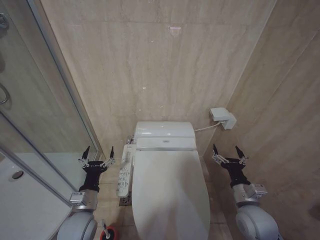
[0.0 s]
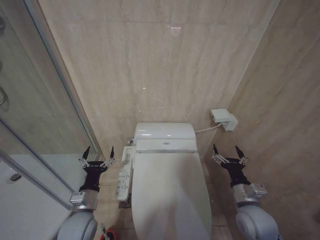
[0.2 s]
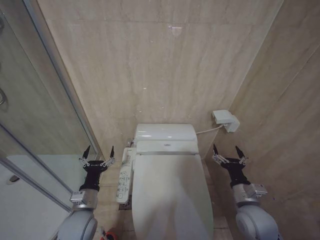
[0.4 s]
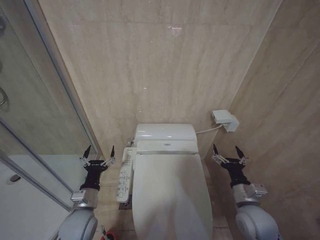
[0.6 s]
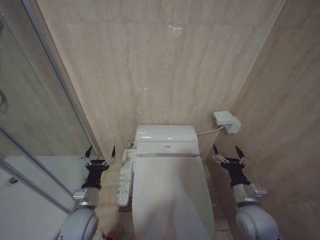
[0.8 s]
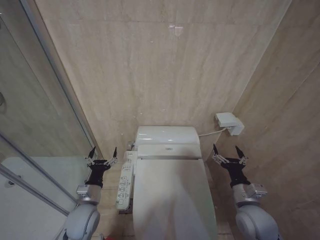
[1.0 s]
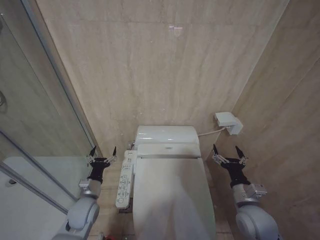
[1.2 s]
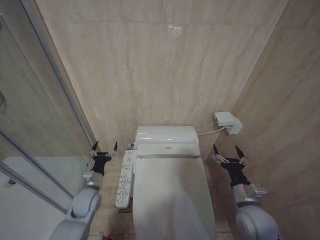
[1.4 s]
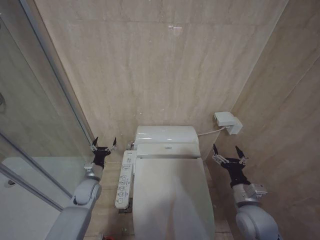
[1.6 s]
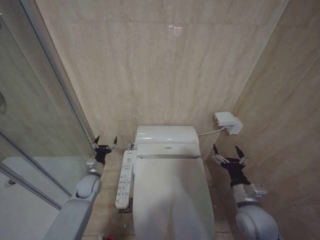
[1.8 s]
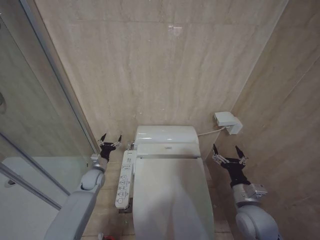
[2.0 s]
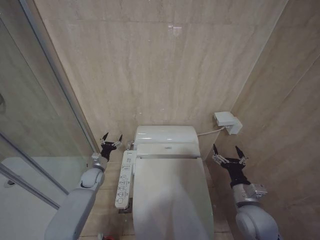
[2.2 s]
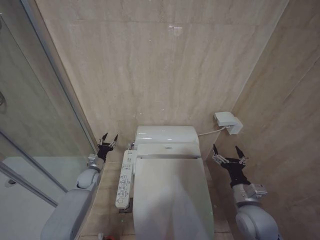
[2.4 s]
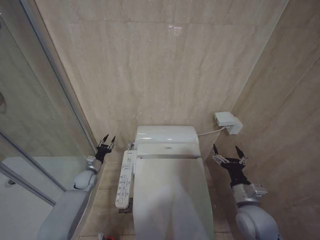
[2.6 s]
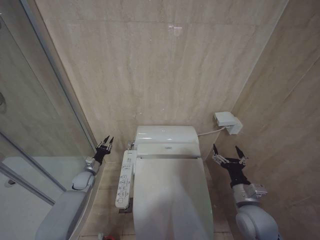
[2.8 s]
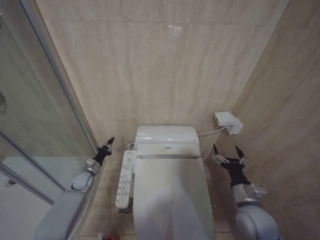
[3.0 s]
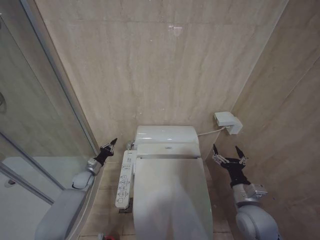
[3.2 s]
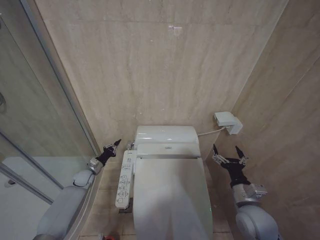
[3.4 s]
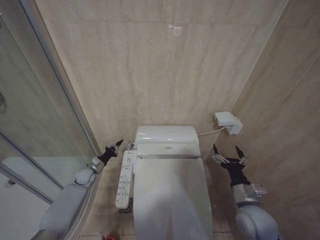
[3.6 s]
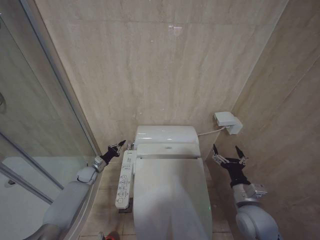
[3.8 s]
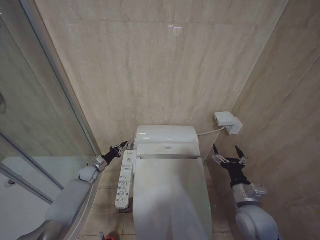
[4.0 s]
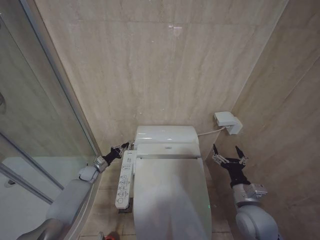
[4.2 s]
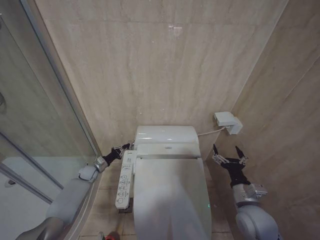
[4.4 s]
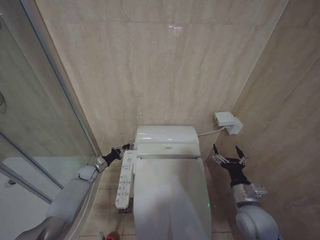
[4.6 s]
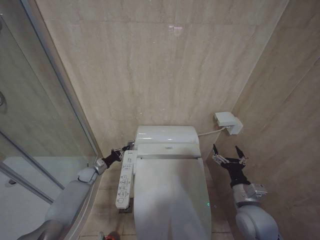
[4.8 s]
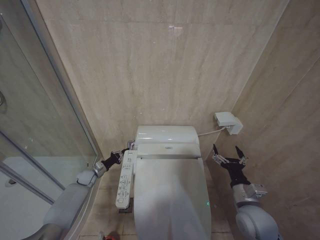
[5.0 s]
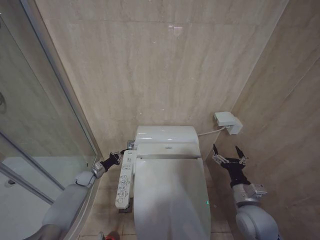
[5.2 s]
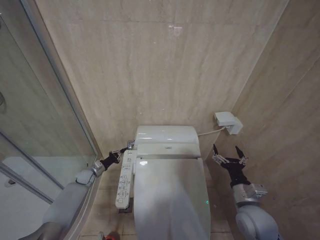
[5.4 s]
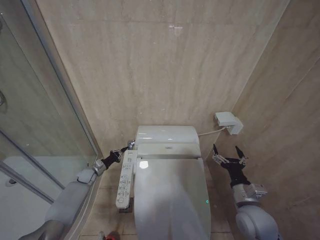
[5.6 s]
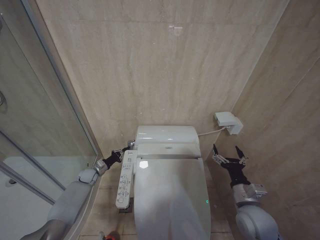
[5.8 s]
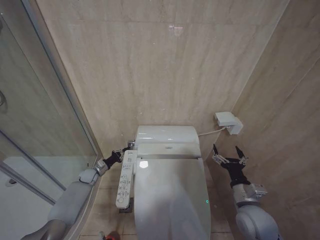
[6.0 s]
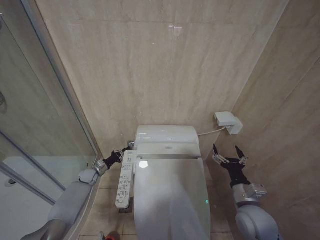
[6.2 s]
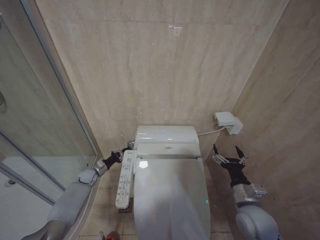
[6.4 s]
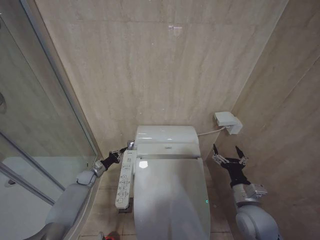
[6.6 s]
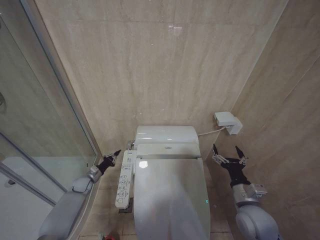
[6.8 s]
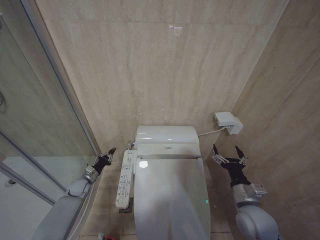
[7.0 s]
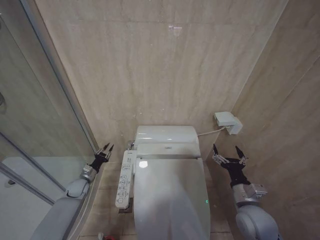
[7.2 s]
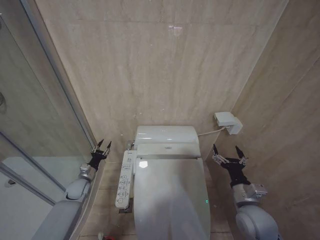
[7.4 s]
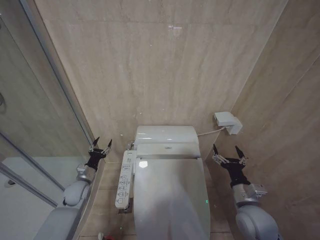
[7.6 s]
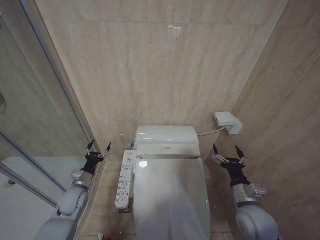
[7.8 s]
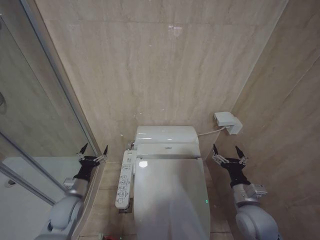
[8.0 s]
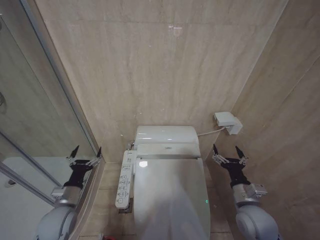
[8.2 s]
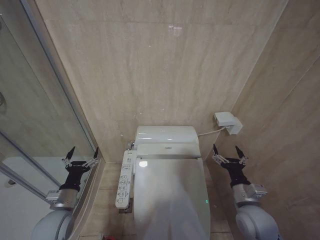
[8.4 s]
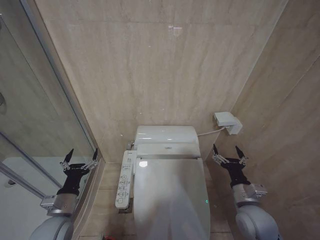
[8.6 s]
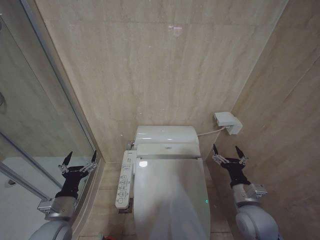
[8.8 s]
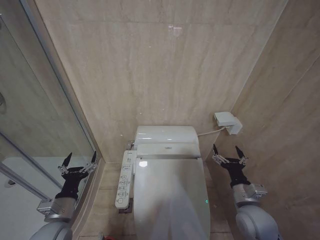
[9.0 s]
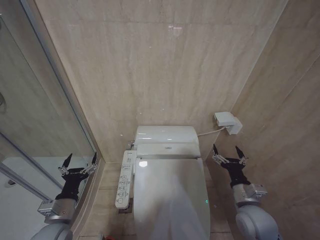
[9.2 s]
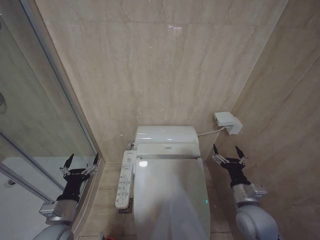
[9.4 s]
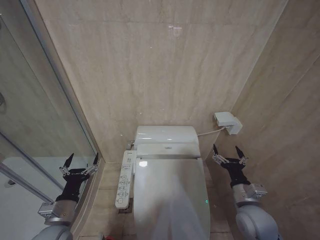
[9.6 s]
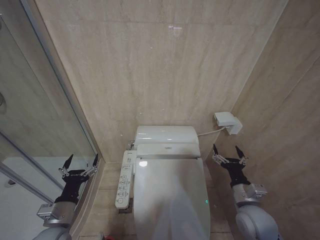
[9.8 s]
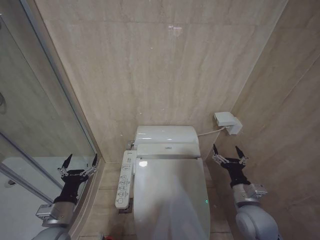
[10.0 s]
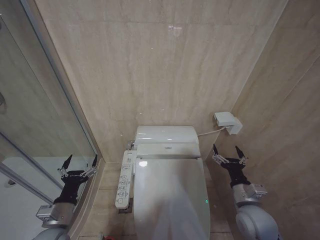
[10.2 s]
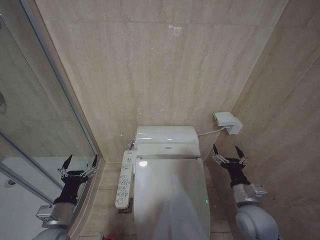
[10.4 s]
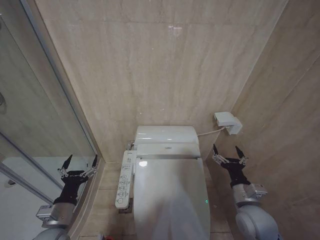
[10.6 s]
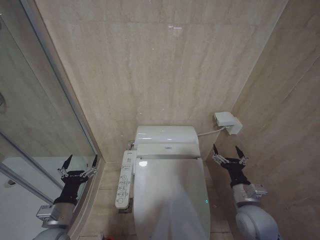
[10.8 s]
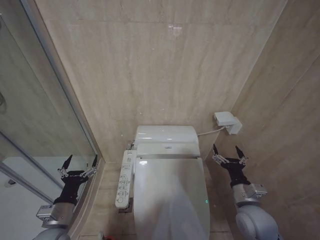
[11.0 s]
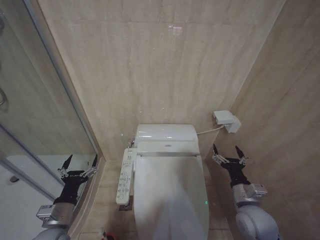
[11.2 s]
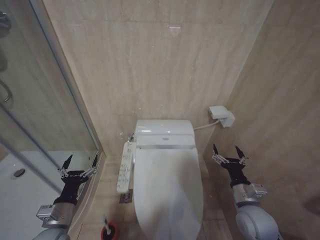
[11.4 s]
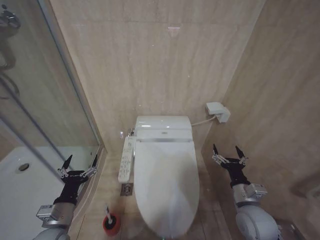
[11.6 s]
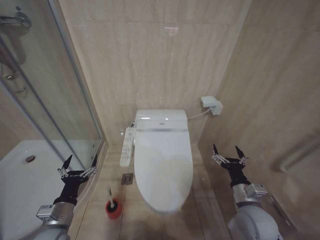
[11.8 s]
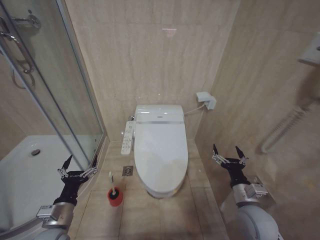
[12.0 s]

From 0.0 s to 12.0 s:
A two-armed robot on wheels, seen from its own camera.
Task of the whole recording: Open the toilet lid, clean the toilet bowl with a toilet brush, close the toilet lid, and flush.
From 0.0 s to 1.6 s: The left gripper goes approximately 15 cm forward and downward.
From 1.6 s to 3.0 s: The left gripper travels forward, to the left and downward by approximately 10 cm, and closes.
From 3.0 s to 4.4 s: The left gripper changes place by roughly 5 cm.
From 4.4 s to 6.0 s: The grippers move only a little.
From 6.0 s to 7.6 s: The left gripper travels backward and upward by some 10 cm, and opens up.
From 7.6 s to 9.0 s: The left gripper shifts roughly 20 cm backward and upward, and opens its fingers.
From 9.0 s to 10.4 s: The grippers stay close to where they were, moving slightly.

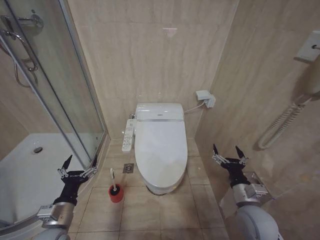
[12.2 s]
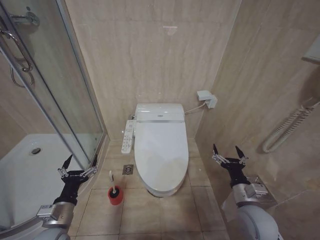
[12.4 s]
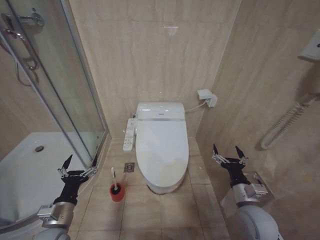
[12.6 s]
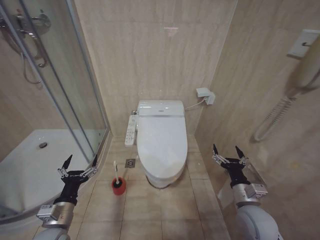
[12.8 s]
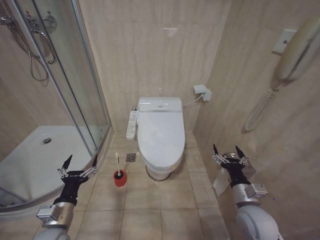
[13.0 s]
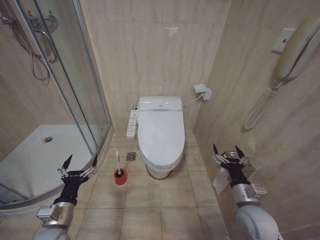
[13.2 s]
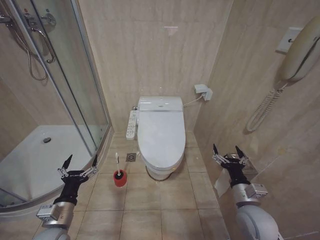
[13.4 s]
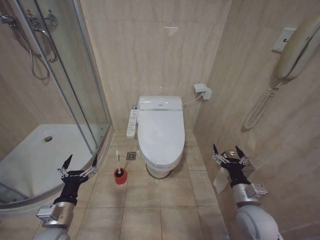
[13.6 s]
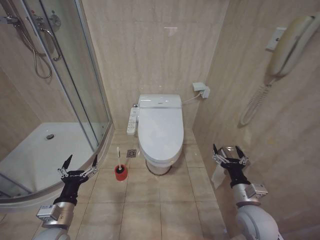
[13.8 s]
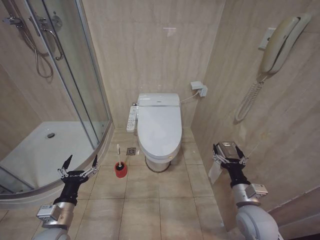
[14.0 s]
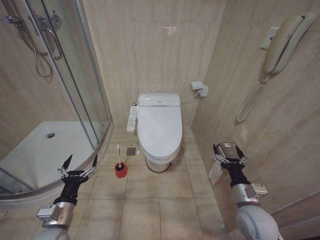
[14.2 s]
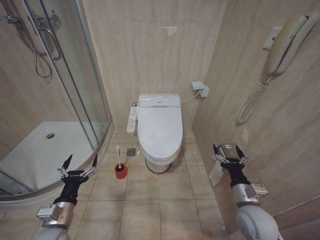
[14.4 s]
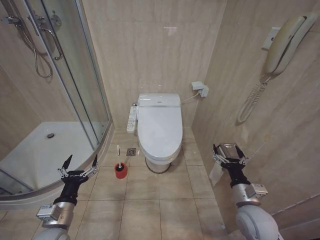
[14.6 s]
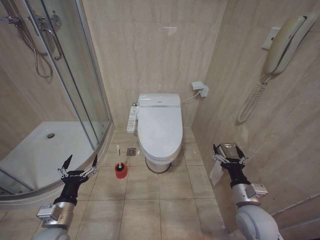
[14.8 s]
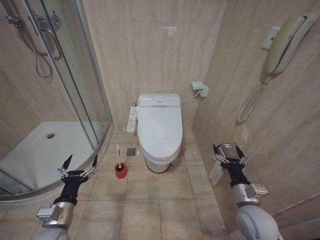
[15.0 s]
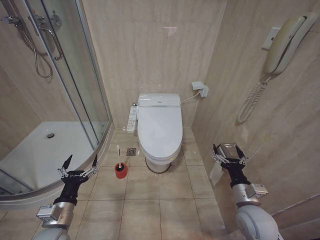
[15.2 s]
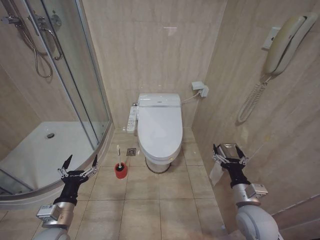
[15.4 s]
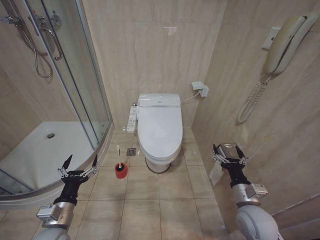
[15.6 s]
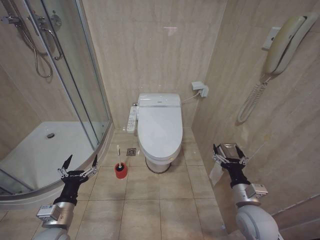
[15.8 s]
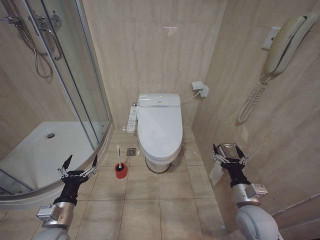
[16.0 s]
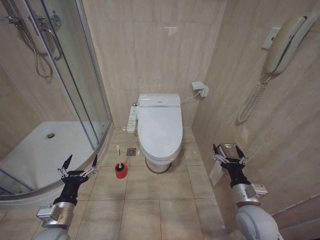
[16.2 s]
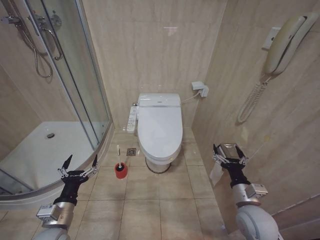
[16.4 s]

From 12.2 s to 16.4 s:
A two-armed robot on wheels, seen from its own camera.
Task of the whole recording: Open the toilet lid, clean the toilet bowl with a toilet brush, close the toilet lid, and flush.
From 12.2 s to 16.4 s: Neither gripper changes place.

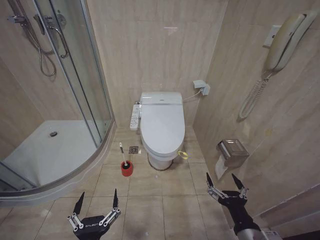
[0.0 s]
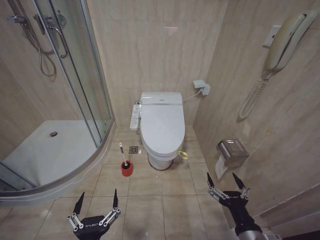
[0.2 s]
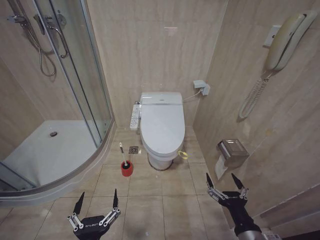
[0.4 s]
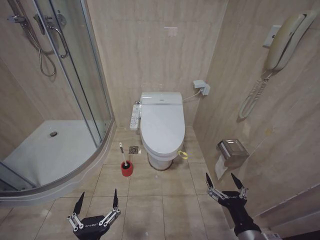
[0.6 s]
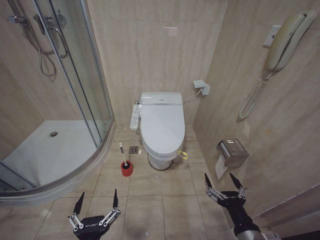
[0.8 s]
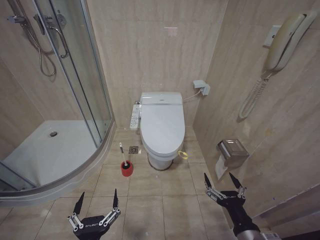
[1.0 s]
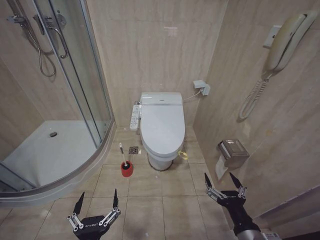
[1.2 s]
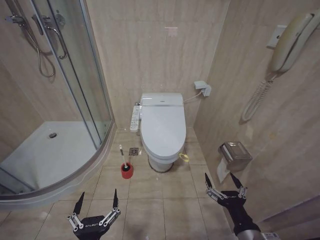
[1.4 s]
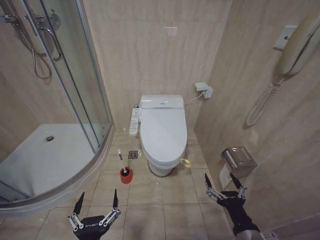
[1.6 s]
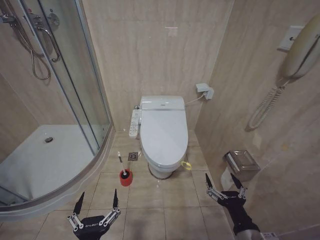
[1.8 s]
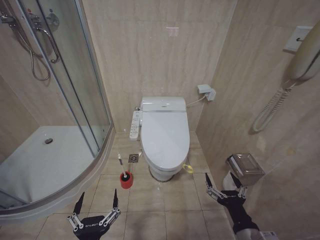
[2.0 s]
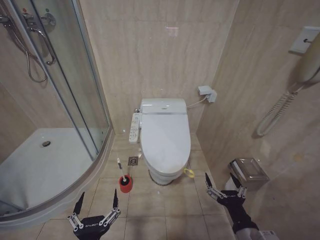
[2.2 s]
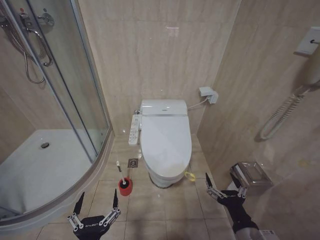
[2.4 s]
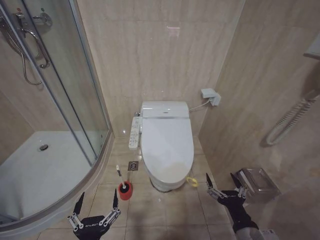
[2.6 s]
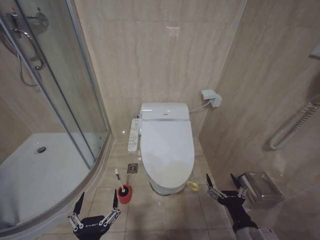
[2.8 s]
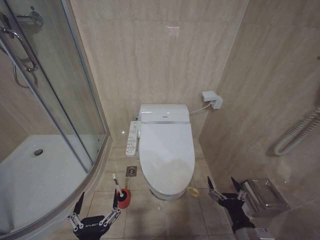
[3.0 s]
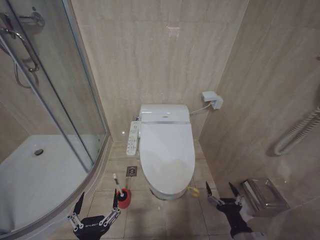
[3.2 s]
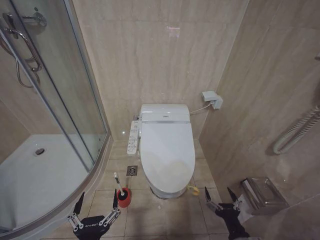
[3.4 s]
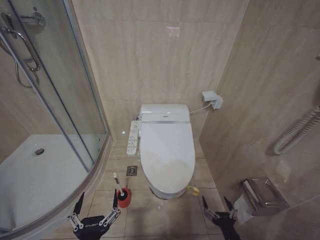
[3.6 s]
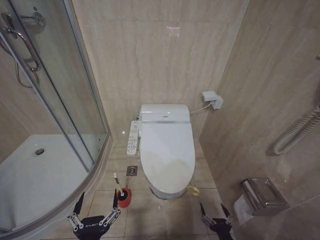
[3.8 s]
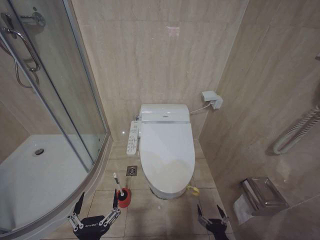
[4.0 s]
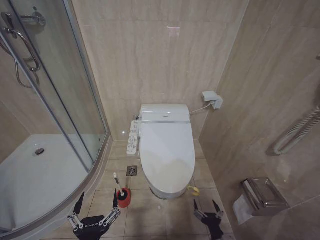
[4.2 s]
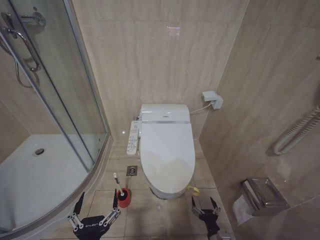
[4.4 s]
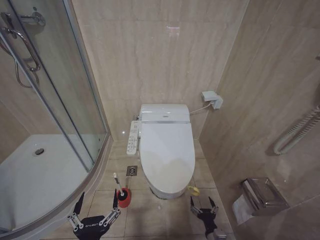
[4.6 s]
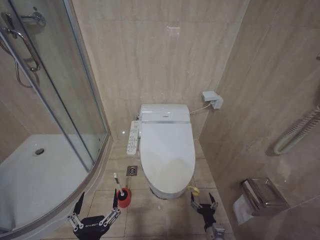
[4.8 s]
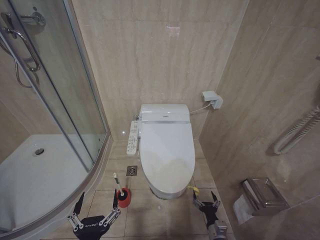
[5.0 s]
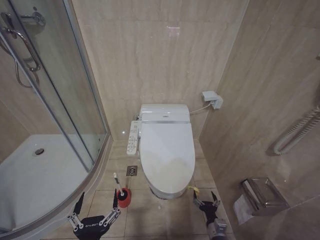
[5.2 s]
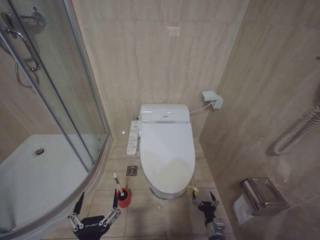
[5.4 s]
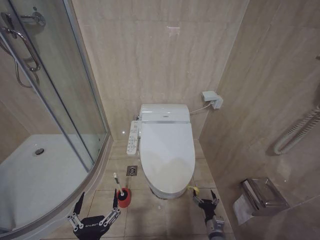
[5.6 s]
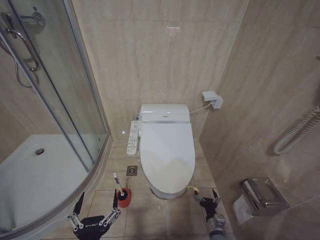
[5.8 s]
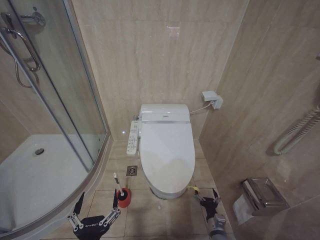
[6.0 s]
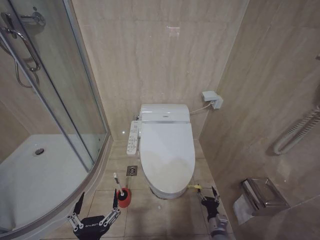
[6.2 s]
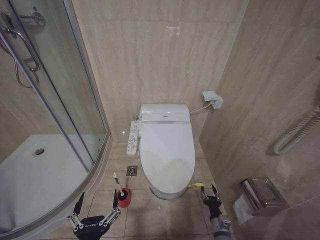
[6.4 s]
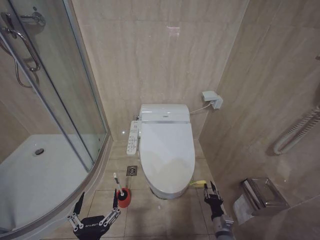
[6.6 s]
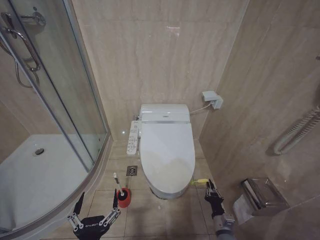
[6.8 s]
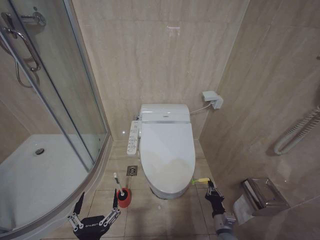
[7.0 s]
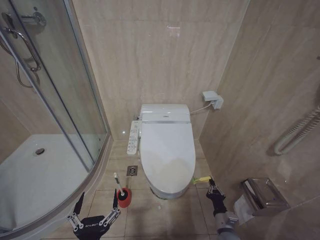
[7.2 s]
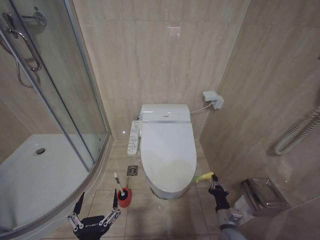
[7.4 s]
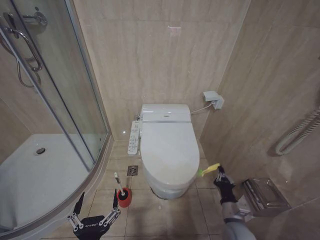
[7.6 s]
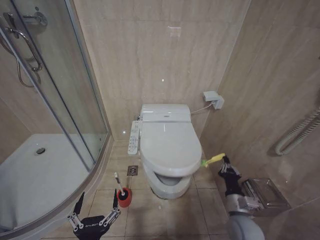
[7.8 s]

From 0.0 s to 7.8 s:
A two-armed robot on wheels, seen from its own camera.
Task of the whole recording: Open the toilet lid, clean the toilet bowl with a toilet brush, close the toilet lid, and flush.
From 1.6 s to 3.2 s: The right gripper heads downward, covering approximately 5 cm.
From 3.2 s to 4.6 s: The right gripper is displaced downward by roughly 20 cm.
From 4.6 s to 6.2 s: The right gripper is displaced forward by roughly 5 cm.
From 6.2 s to 7.8 s: The right gripper is displaced upward by approximately 15 cm, and closes its fingers.
